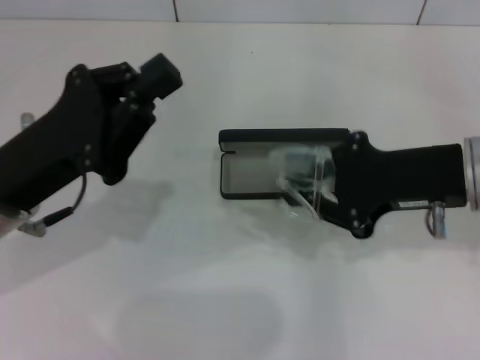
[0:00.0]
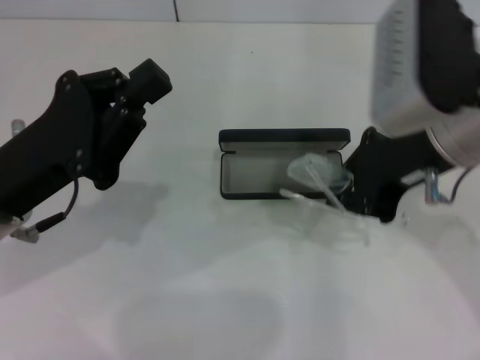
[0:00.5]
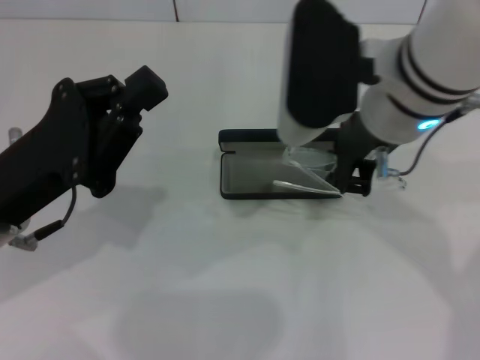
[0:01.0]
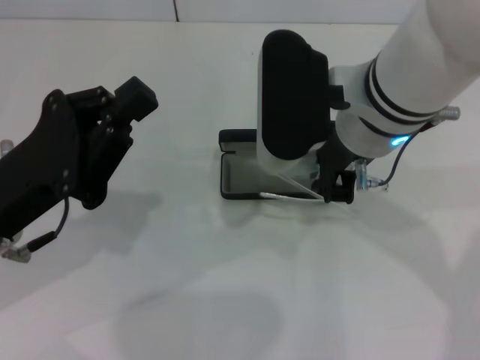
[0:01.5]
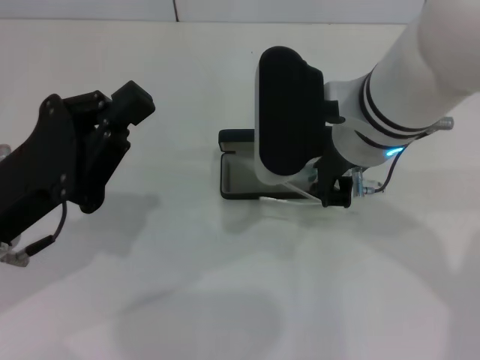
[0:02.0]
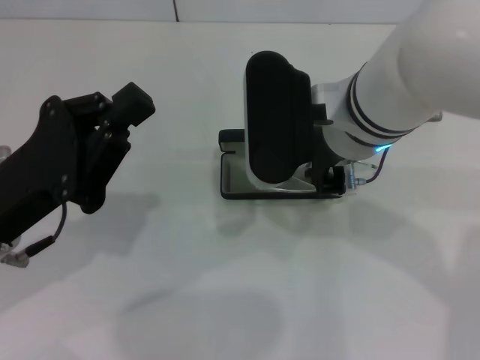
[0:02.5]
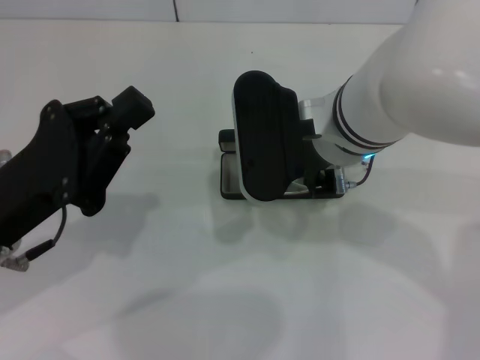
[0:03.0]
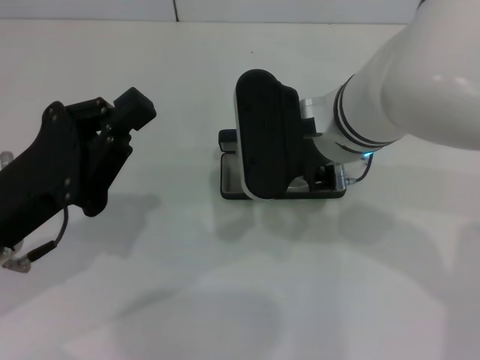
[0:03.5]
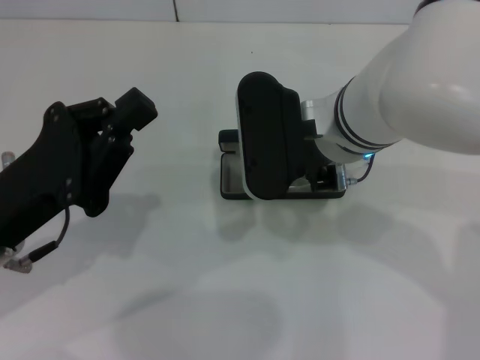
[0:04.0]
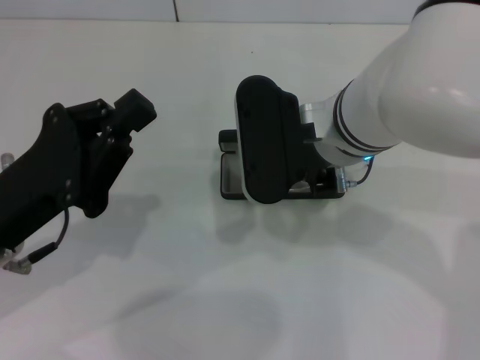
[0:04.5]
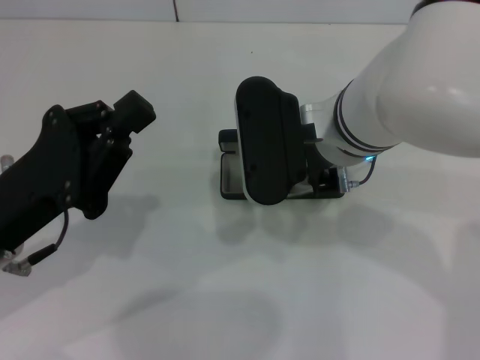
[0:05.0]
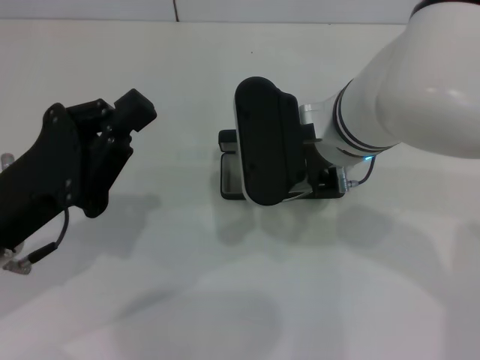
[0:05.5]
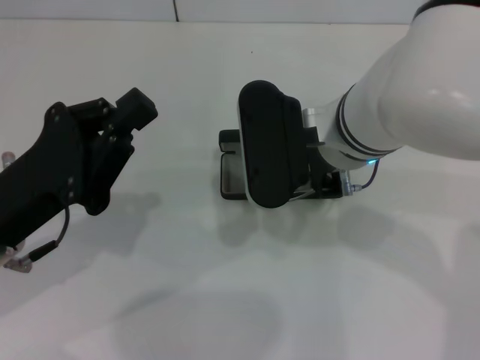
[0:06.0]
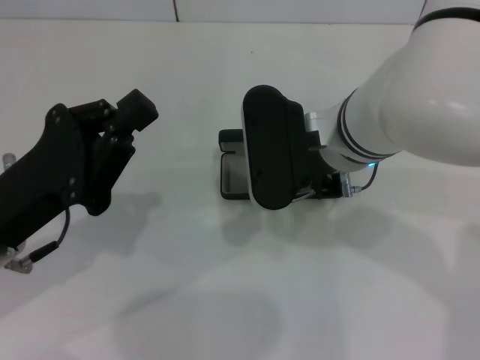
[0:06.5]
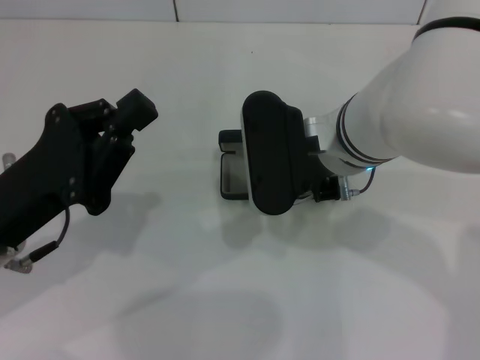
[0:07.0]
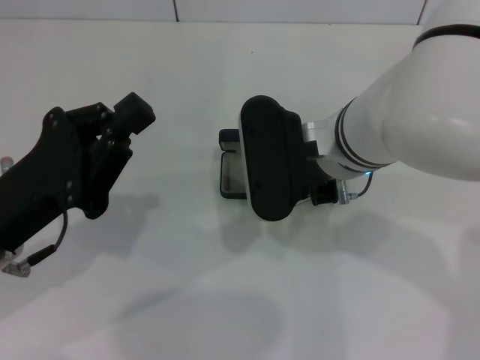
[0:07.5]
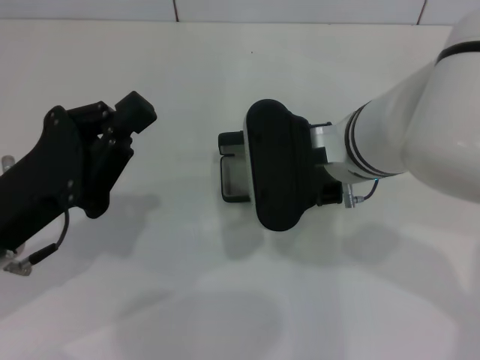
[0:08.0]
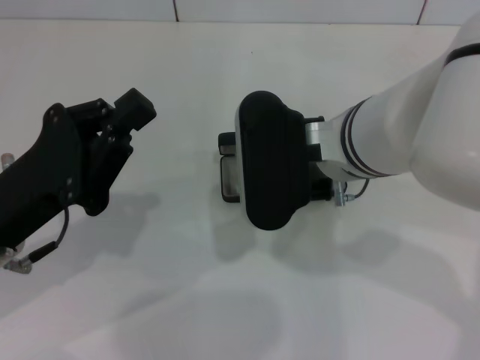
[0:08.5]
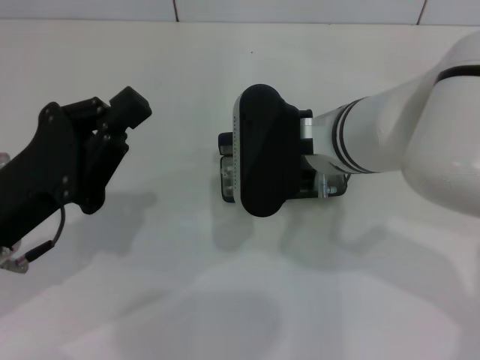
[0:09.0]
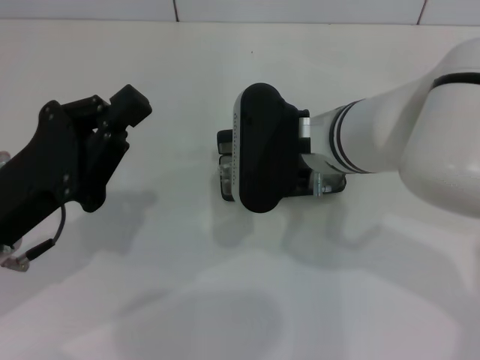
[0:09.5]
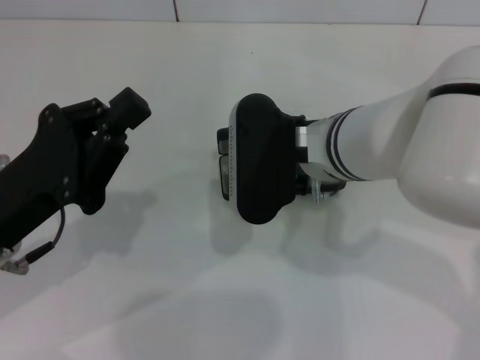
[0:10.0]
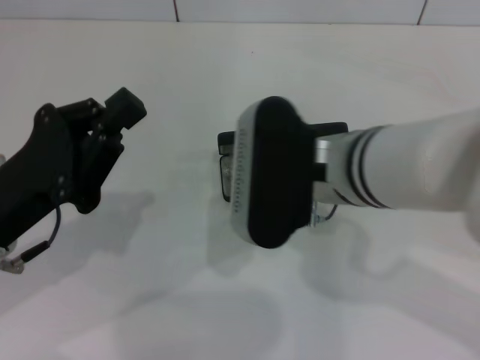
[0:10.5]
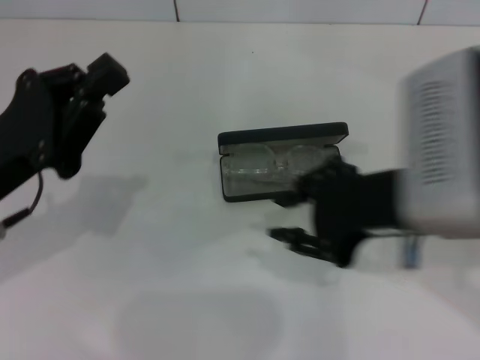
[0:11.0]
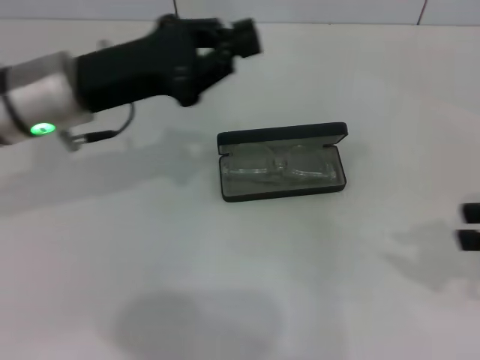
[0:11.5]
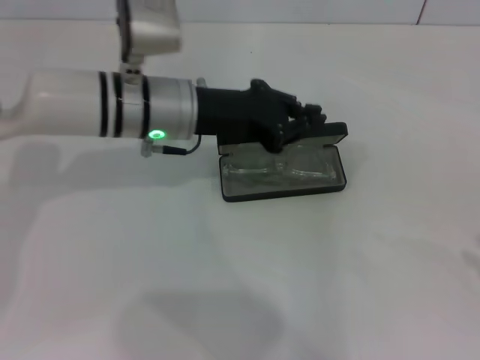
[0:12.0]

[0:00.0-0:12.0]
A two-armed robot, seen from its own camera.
Step, 0:00.0 to 0:10.0: Put the glasses into the case with your right hand.
0:00.0 to 0:02.0: The right gripper is displaced to the left by approximately 15 cm.
0:02.0 to 0:04.0: The grippers move only a little.
0:04.0 to 0:06.0: Both grippers stay about where they are.
0:06.0 to 0:10.0: There are only small adjustments of the grippers.
0:10.0 to 0:12.0: The left gripper shifts approximately 20 cm forward and to the right; the right gripper goes some 40 cm to the right and backward.

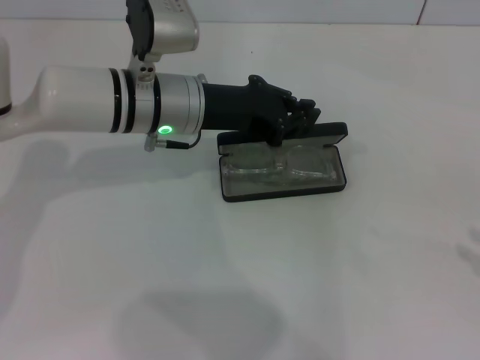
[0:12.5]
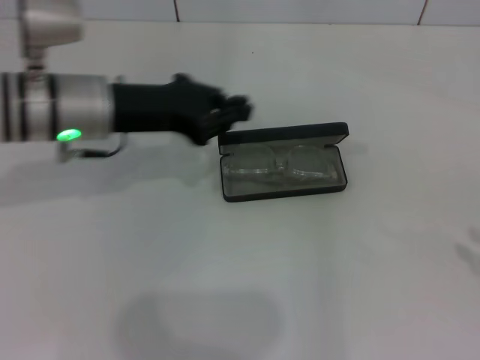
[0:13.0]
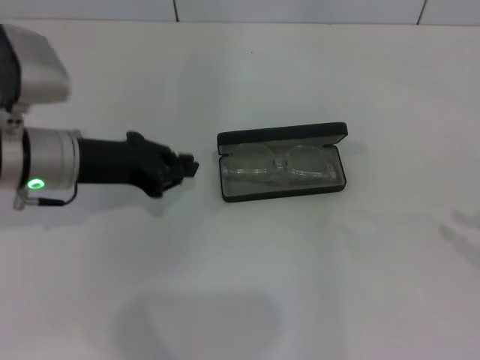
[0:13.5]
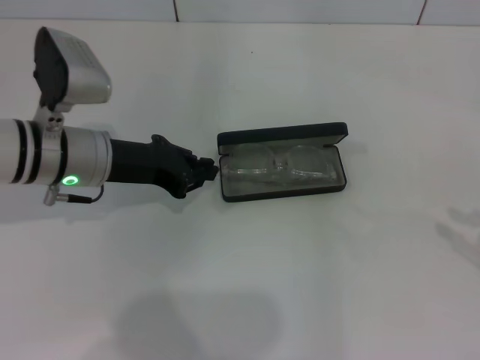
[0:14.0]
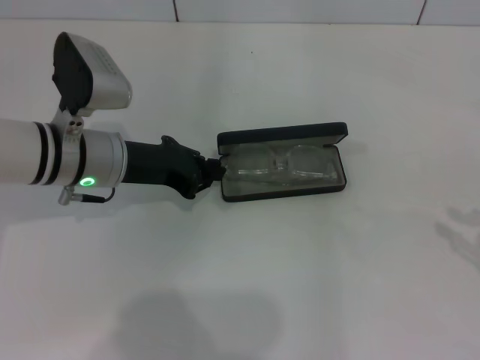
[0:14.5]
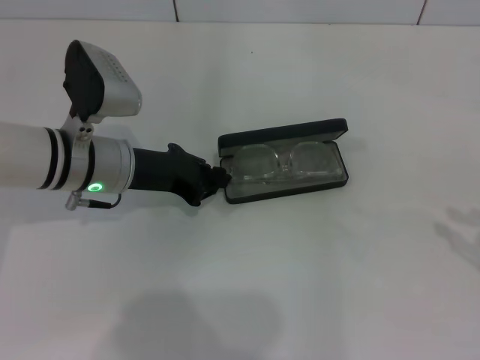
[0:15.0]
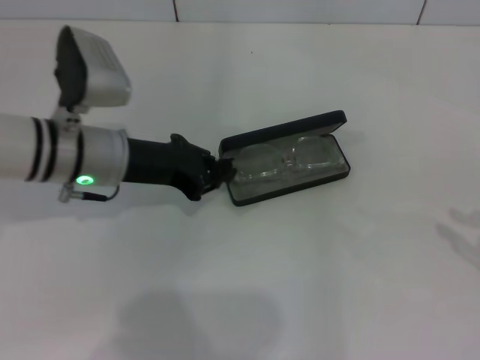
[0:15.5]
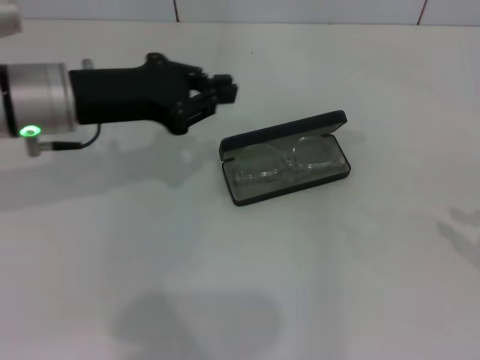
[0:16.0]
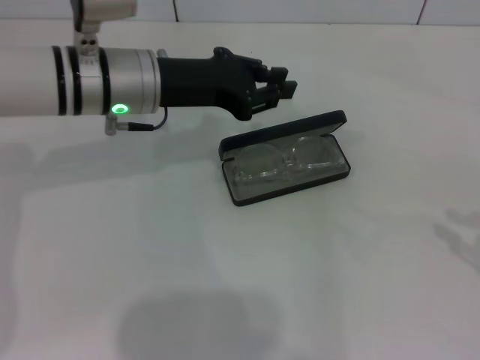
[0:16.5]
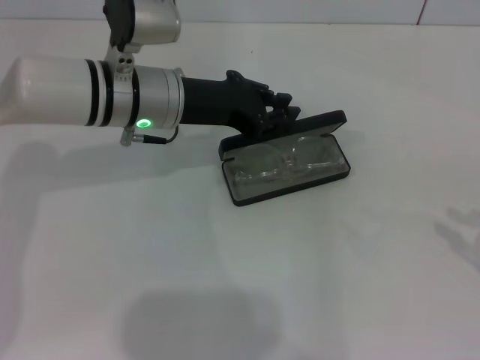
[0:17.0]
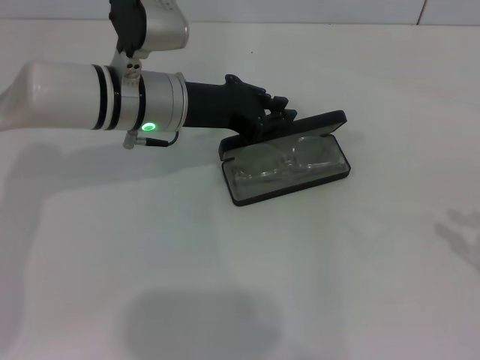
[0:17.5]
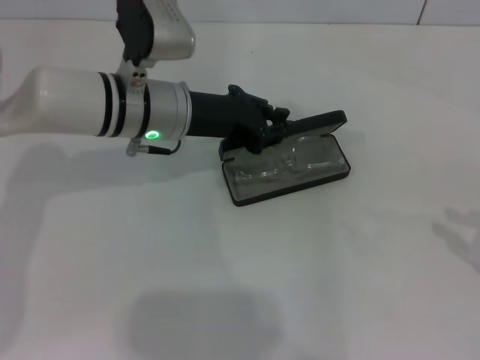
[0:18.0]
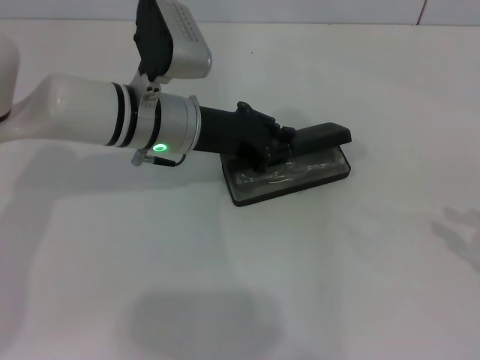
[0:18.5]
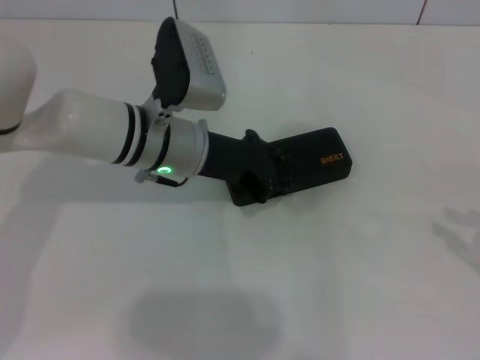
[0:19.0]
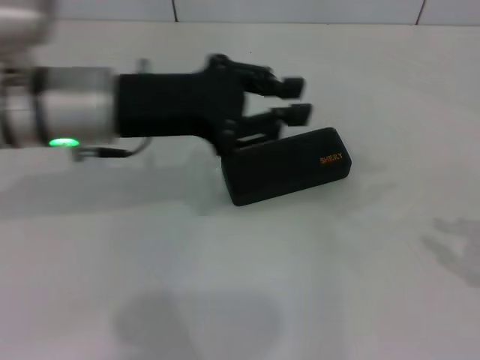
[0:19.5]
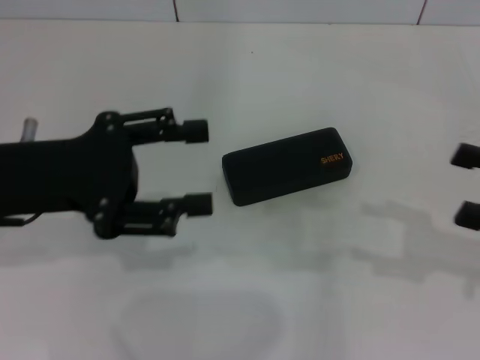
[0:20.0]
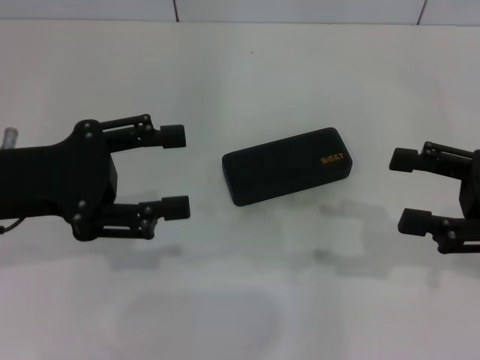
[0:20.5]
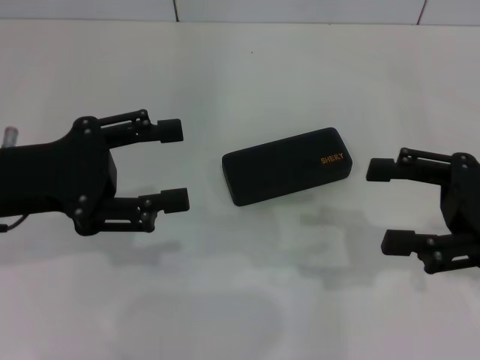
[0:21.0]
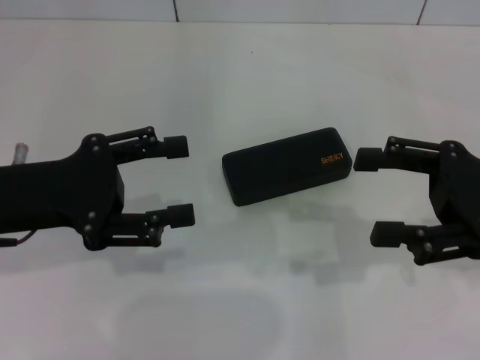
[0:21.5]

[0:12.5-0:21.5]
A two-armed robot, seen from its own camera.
Step, 0:12.5 to 0:18.5: Close the glasses case with your left hand.
0:12.5 to 0:14.5: The left gripper moves to the left, roughly 5 cm.
0:14.5 to 0:17.0: The left gripper travels to the right by about 5 cm.
0:17.0 to 0:19.5: The left gripper is displaced backward and upward by approximately 10 cm.
0:19.5 to 0:21.5: The right gripper heads to the left and forward, covering roughly 15 cm, and opens its fingers. The left gripper moves to the left and backward, approximately 10 cm, and opens up.

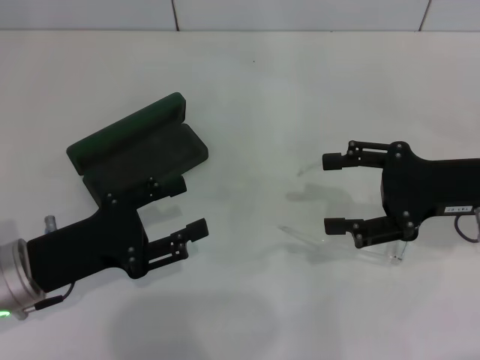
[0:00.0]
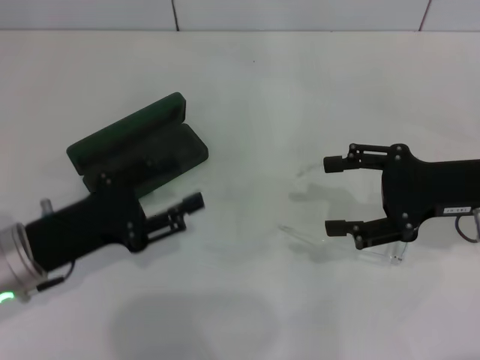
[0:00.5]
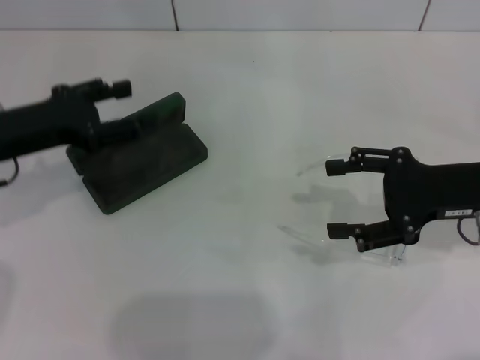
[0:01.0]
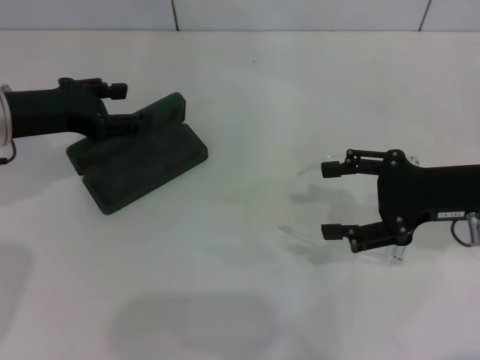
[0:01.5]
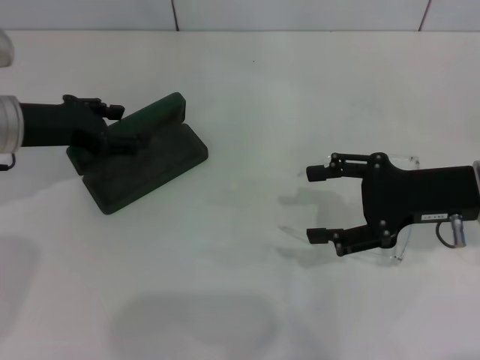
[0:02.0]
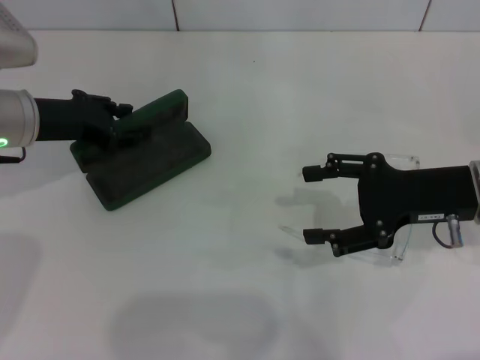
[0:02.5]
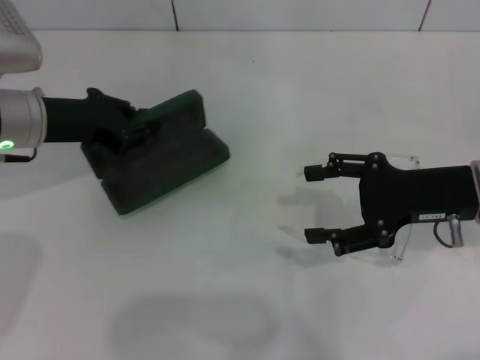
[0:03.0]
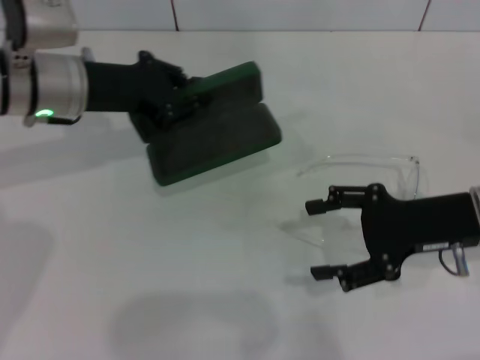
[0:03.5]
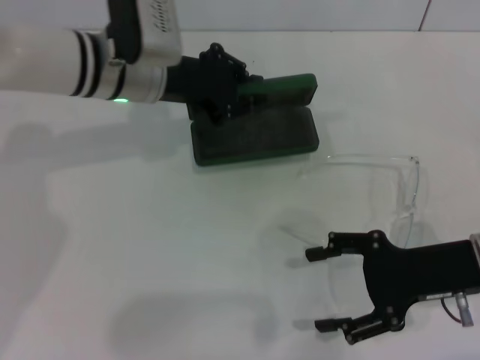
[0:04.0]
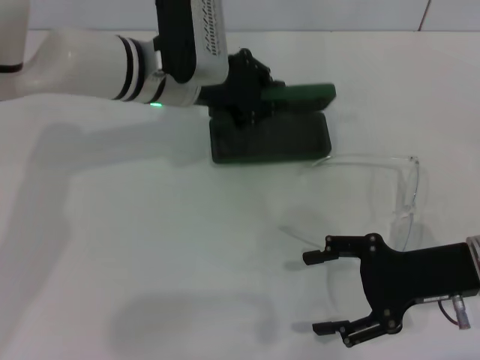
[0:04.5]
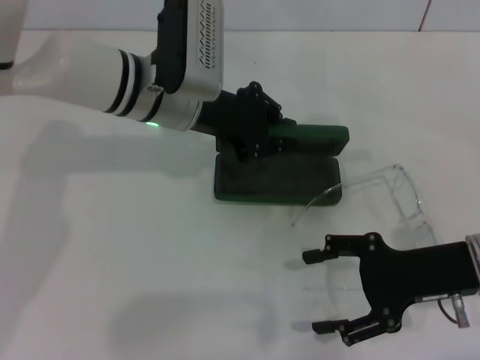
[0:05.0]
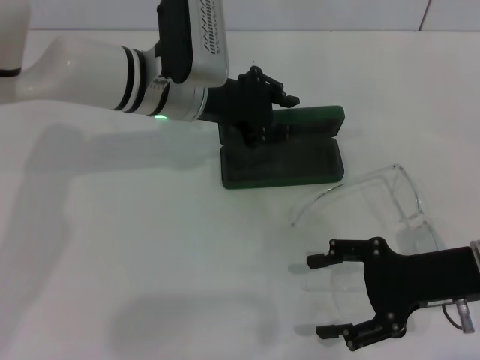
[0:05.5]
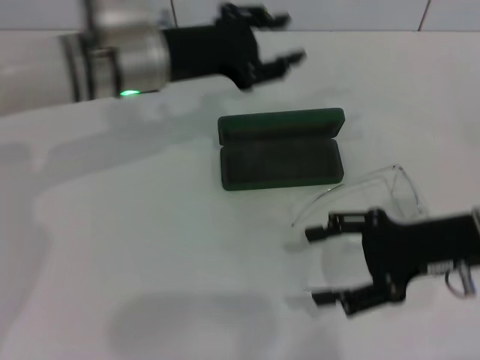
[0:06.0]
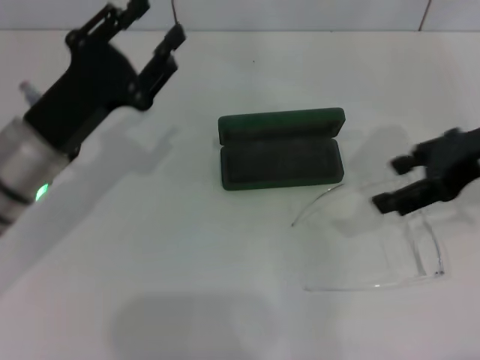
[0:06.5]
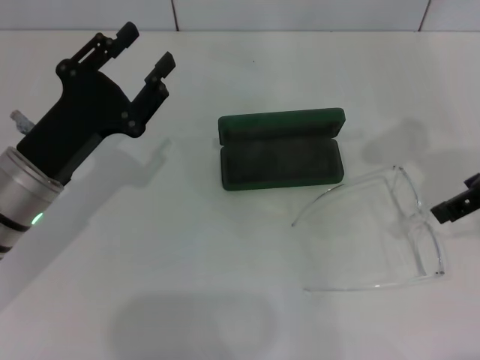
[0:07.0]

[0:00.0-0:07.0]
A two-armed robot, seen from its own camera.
Step, 0:00.0 to 0:02.5: Grab the glasses case with your left hand.
Step, 0:03.0 to 0:05.5: Place the glasses case in the center of the table with your left hand.
0:00.0 to 0:02.0: The left gripper shifts approximately 15 cm forward and upward.
0:02.0 to 0:03.5: The left gripper shifts some 5 cm to the right, and closes.
0:03.5 to 0:05.0: The left gripper is displaced to the right by some 10 cm.
0:05.0 to 0:07.0: The left gripper travels backward and to the left by approximately 15 cm, and opens; the right gripper goes about 15 cm upward.
